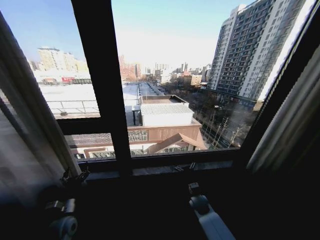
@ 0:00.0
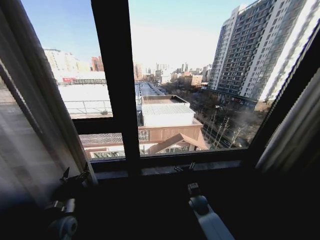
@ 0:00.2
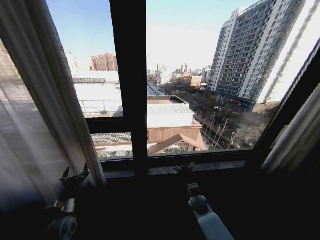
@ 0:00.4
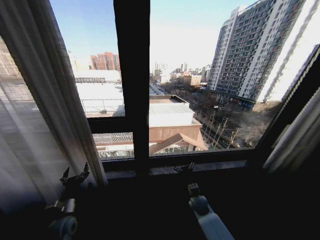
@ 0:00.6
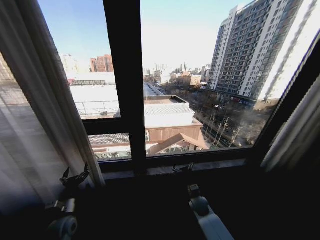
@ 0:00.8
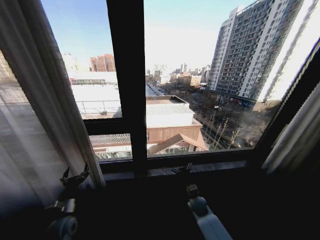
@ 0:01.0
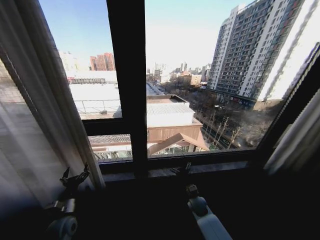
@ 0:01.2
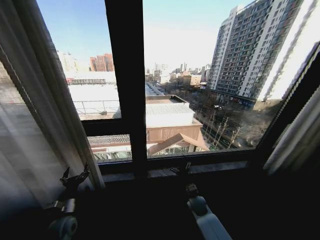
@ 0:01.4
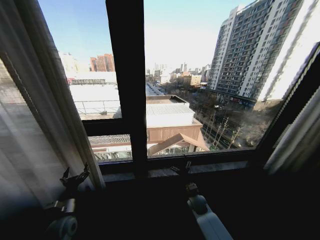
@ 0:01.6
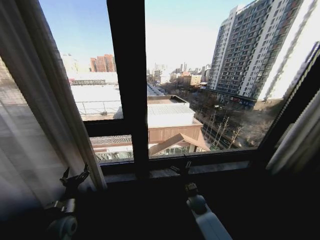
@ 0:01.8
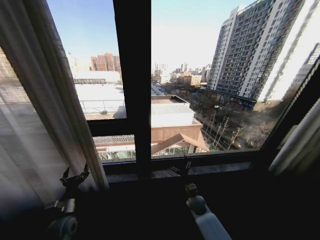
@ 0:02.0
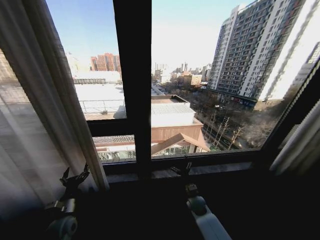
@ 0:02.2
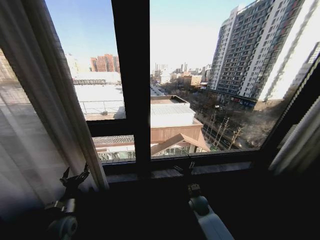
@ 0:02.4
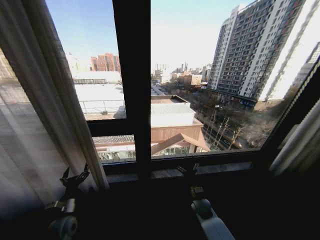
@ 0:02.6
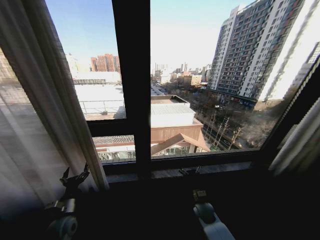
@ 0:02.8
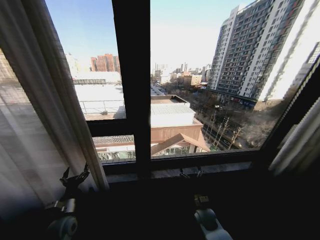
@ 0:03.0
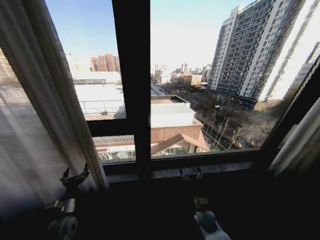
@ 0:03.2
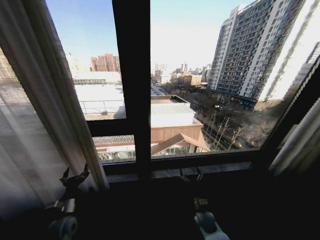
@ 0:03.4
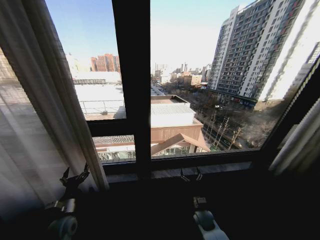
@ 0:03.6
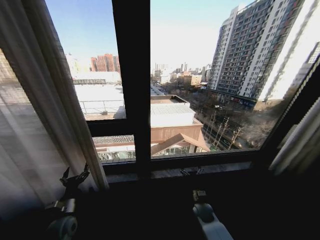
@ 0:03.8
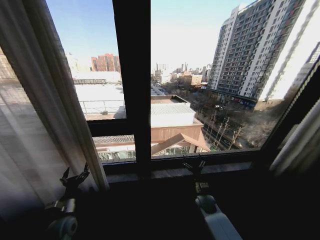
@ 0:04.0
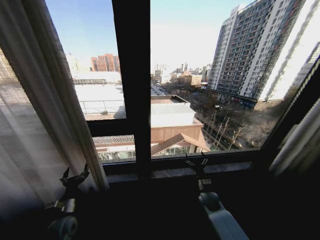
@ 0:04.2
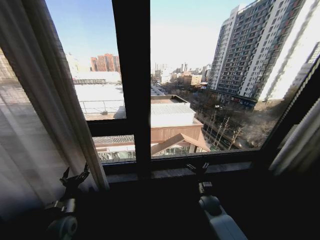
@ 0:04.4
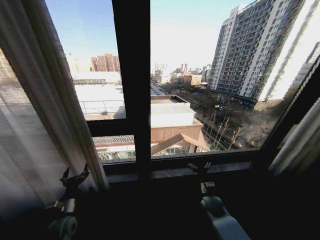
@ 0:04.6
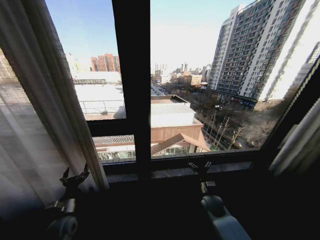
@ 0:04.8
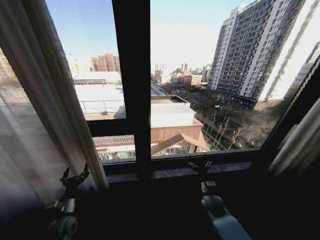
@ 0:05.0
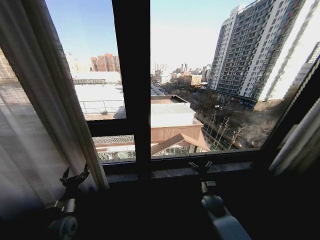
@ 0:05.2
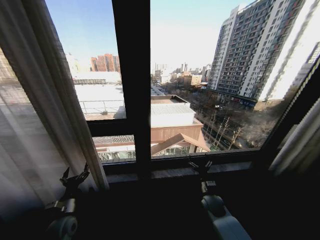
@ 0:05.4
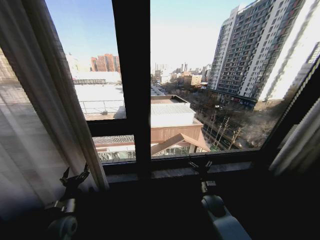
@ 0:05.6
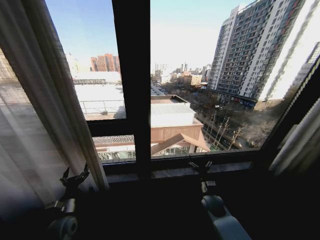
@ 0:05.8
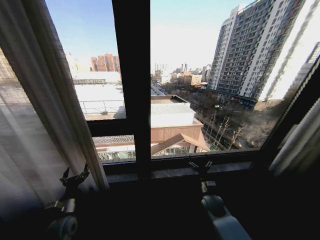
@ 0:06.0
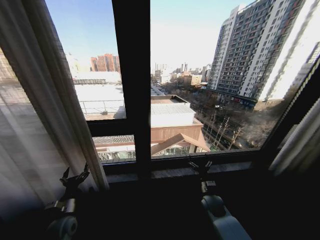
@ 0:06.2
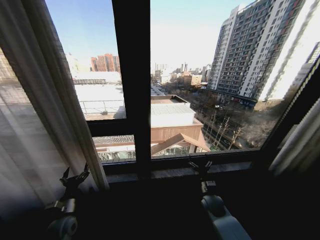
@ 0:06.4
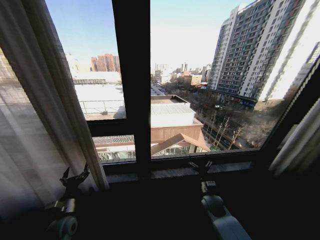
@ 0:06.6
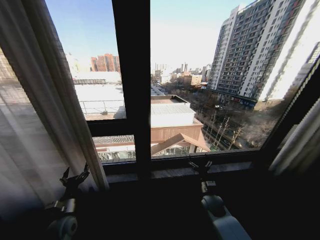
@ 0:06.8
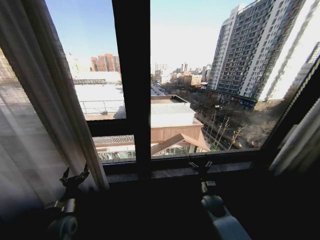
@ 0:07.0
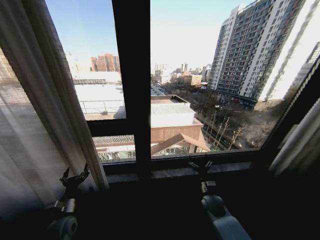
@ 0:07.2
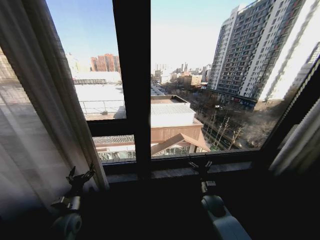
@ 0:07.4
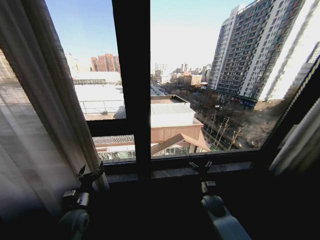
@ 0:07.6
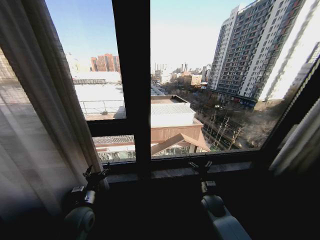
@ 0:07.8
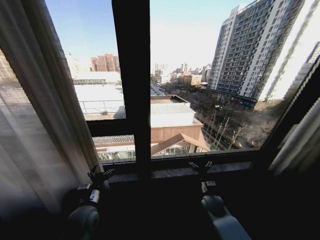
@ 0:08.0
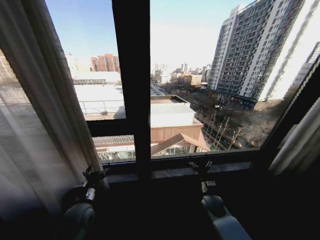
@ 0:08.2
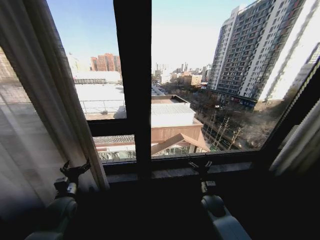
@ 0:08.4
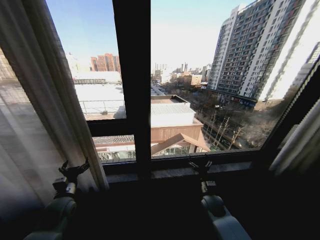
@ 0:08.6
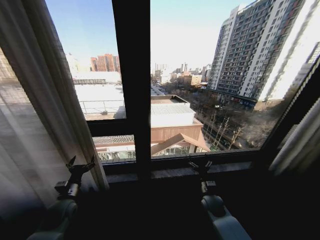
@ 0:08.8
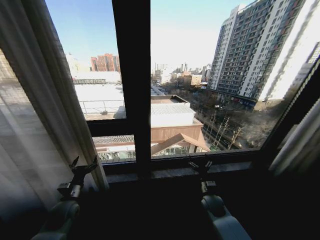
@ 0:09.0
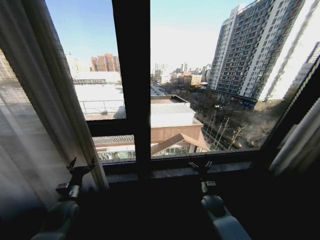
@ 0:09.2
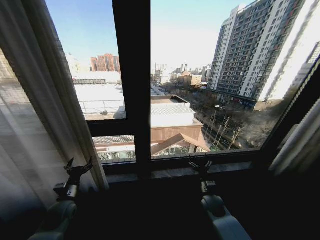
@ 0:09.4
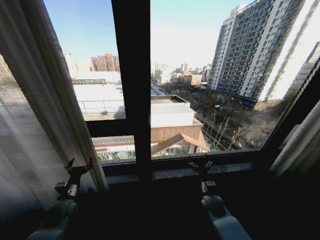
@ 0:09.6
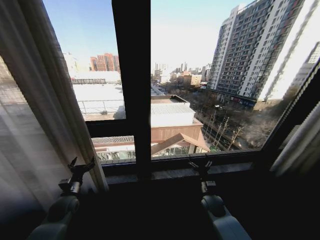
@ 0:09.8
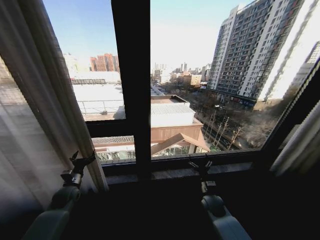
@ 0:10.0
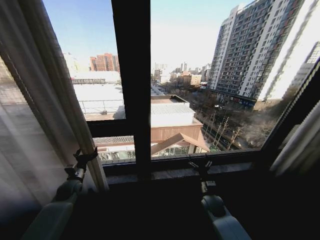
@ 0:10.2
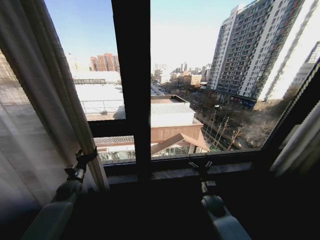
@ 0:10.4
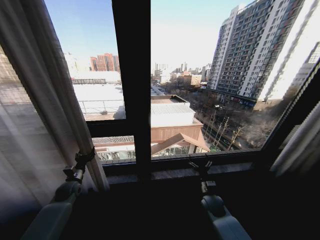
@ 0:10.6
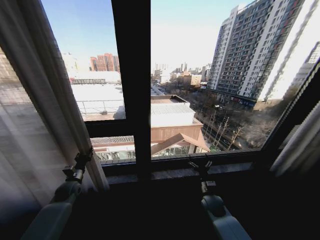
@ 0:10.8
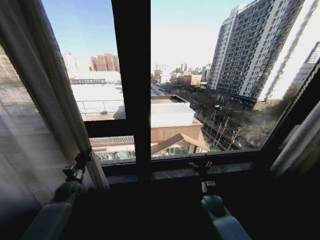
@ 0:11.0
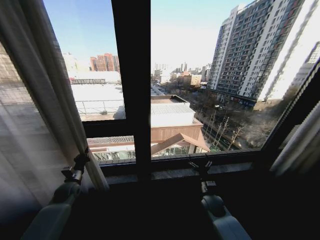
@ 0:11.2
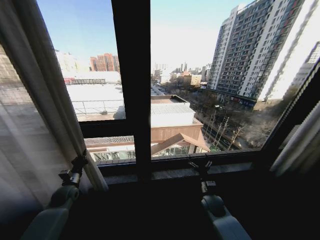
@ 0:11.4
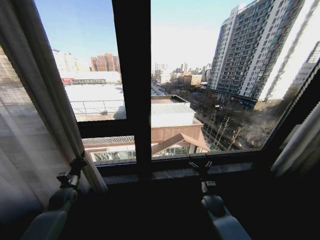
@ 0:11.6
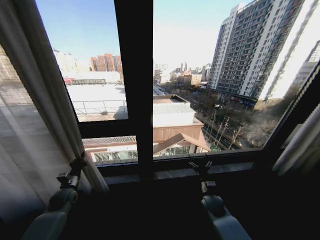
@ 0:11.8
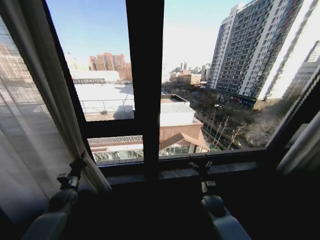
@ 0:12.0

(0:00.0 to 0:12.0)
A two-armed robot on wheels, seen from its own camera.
Task of the whole recording: Open the curtains by pulling them apart, changing their state from closed to fully open.
0:01.6 - 0:03.0: The right gripper goes about 5 cm backward.
0:03.0 - 0:04.4: The right gripper shifts by some 5 cm.
0:06.0 - 0:07.6: The left gripper shifts approximately 5 cm to the right.
0:07.6 - 0:09.0: The left gripper moves to the left, about 5 cm.
0:09.0 - 0:10.4: The left gripper shifts roughly 10 cm forward.
0:10.4 - 0:12.0: The left gripper closes its fingers.

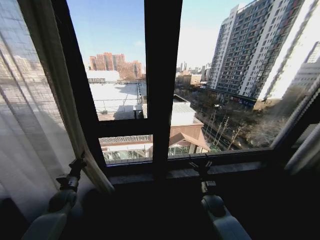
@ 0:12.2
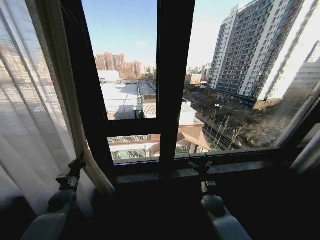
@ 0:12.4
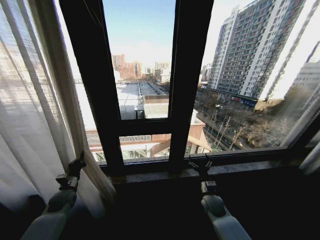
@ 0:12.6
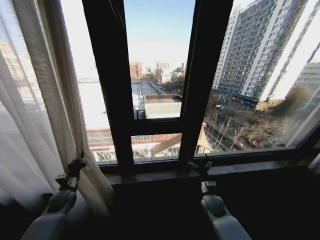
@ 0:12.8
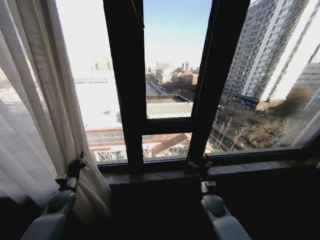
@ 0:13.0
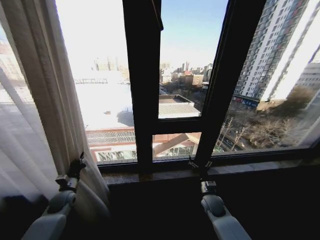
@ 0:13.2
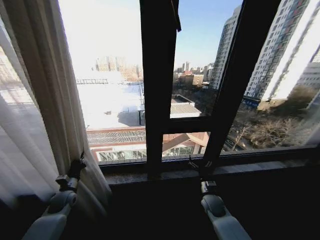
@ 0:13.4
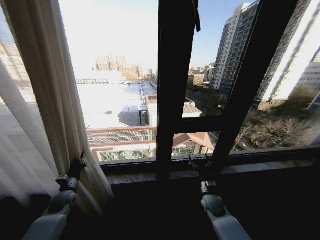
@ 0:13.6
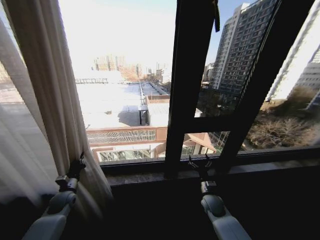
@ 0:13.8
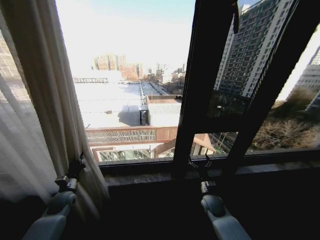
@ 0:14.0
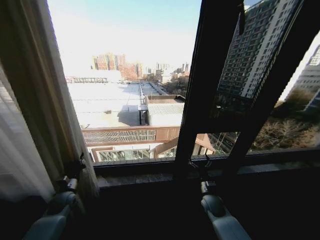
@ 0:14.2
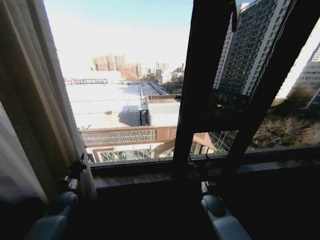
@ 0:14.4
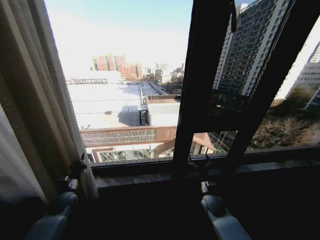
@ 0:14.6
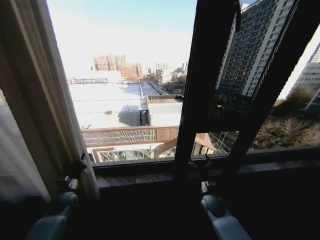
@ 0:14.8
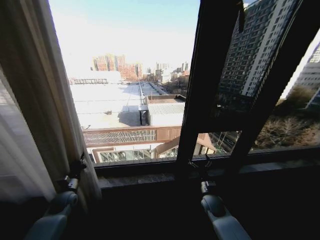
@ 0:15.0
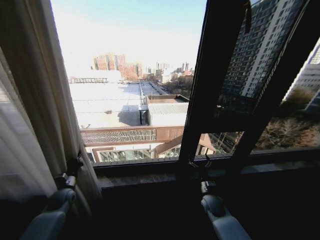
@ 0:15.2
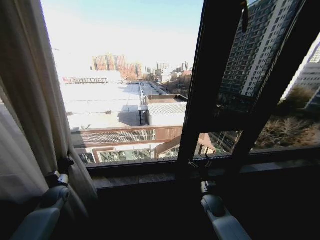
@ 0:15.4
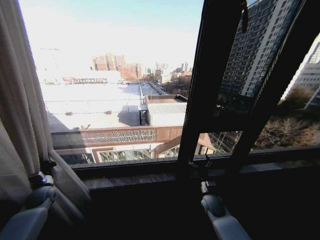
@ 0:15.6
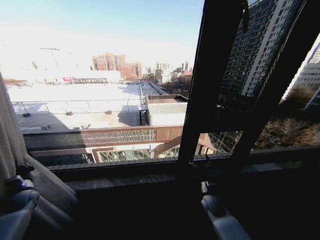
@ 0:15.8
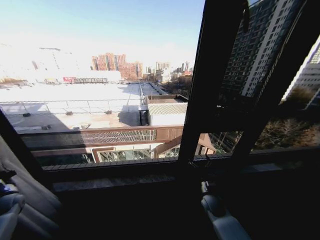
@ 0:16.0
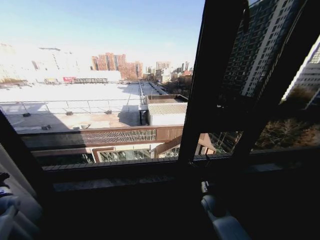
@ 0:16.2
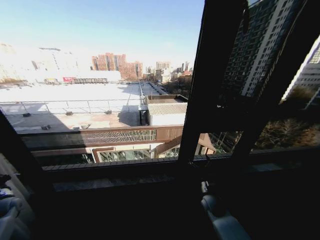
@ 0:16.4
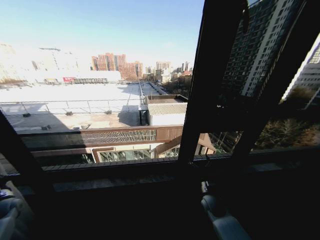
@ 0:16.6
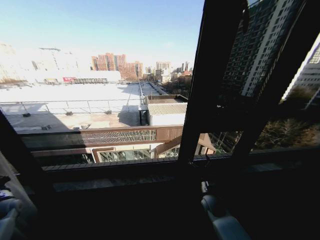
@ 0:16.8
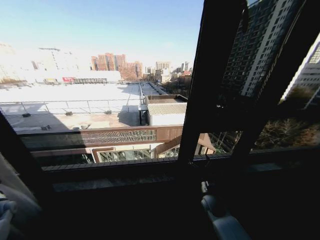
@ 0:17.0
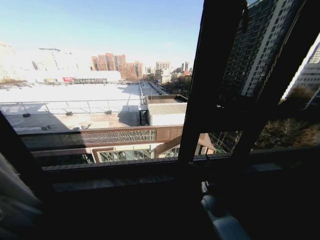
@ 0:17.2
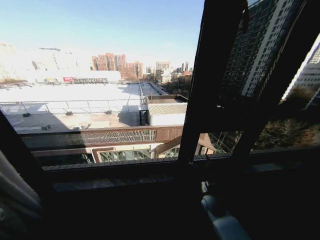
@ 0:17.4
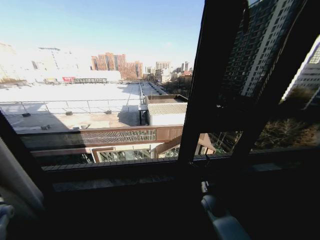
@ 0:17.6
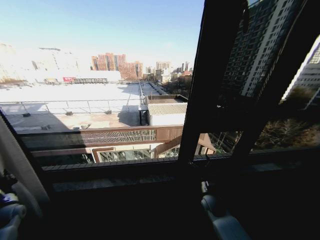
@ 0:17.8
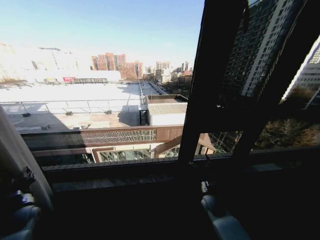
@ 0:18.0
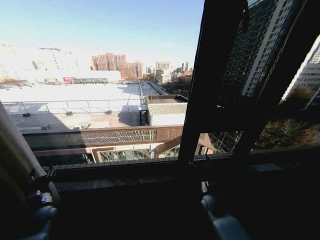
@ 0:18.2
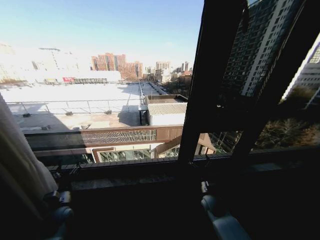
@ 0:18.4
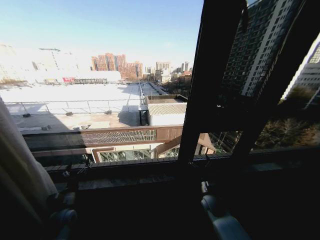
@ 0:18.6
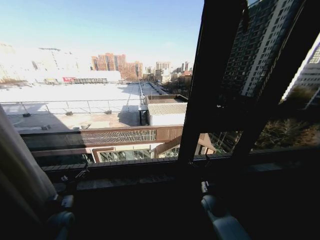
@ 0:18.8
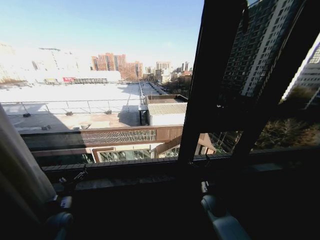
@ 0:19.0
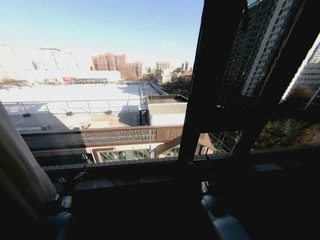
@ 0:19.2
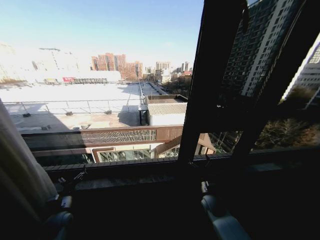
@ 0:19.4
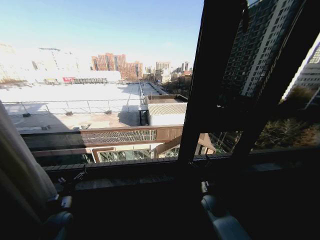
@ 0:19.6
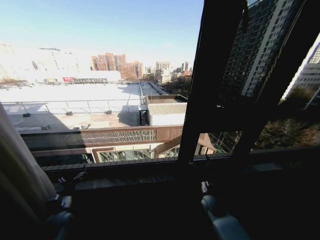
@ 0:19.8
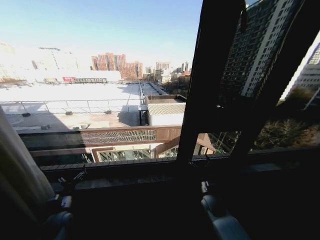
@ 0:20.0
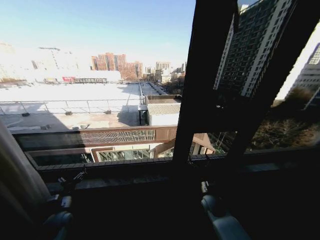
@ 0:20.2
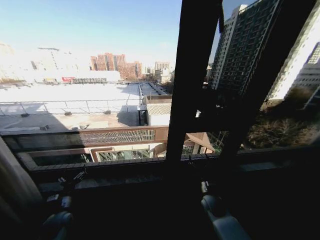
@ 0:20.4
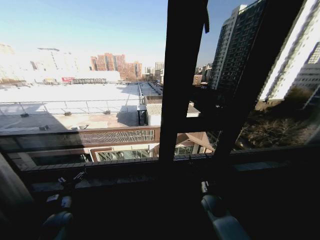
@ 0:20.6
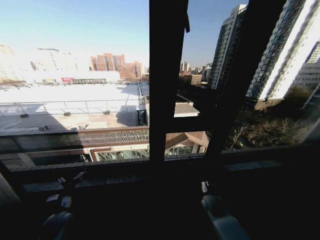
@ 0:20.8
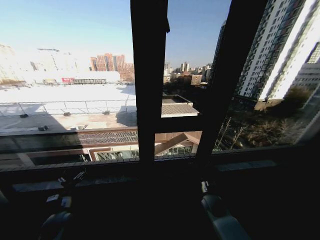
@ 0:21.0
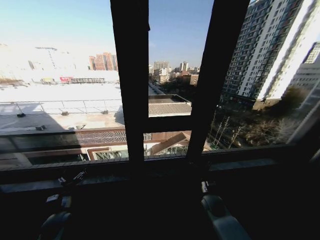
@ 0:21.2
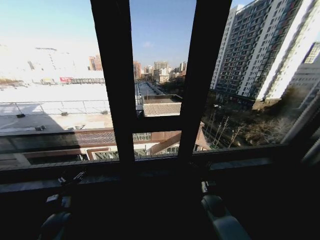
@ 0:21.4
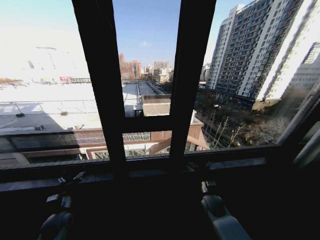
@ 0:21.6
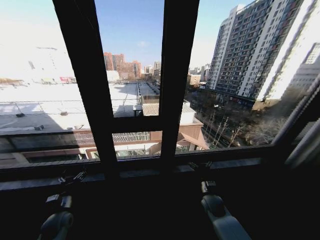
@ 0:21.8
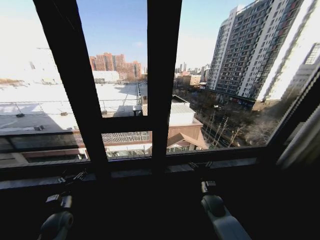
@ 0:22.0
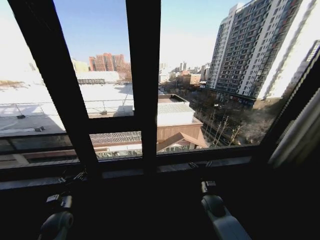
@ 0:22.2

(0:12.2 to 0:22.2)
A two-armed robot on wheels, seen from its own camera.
Task of the whole recording: Open the curtains by pulling them apart, changing their state from closed to fully open.
0:15.0 - 0:16.4: The left gripper is displaced to the left by approximately 20 cm.
0:16.4 - 0:18.0: The left gripper shifts approximately 10 cm to the right, and opens up.
0:18.0 - 0:19.4: The left gripper is displaced to the right by some 15 cm, and opens its fingers.
